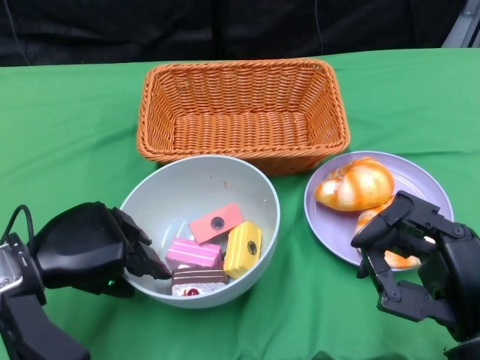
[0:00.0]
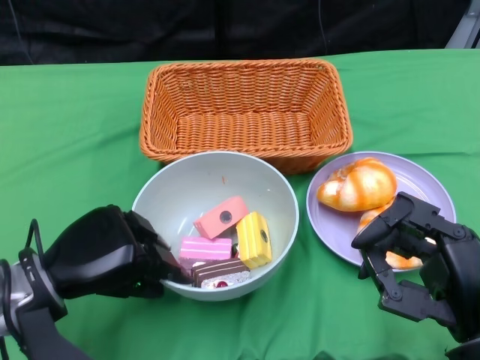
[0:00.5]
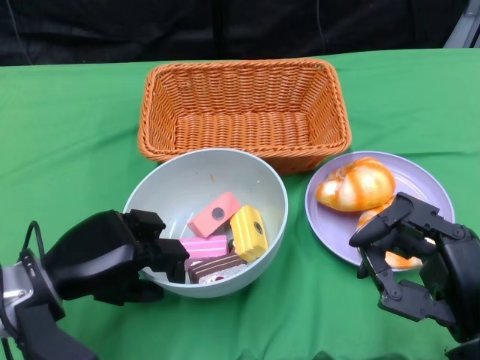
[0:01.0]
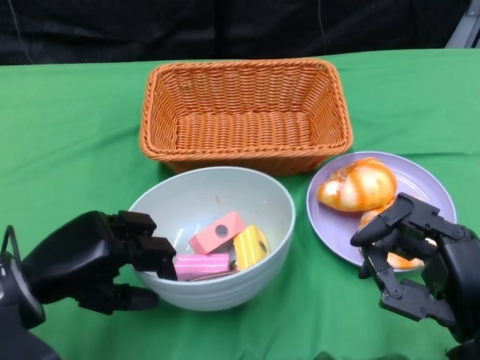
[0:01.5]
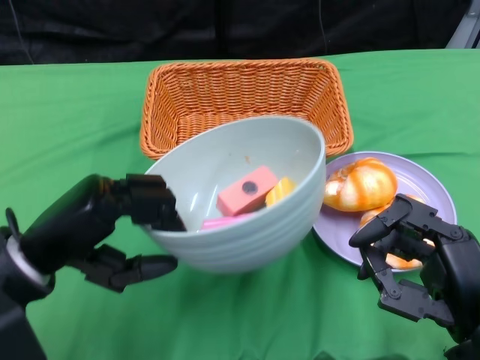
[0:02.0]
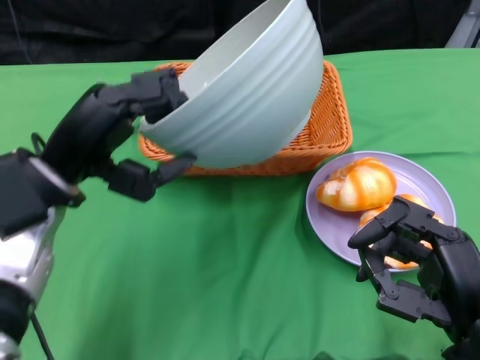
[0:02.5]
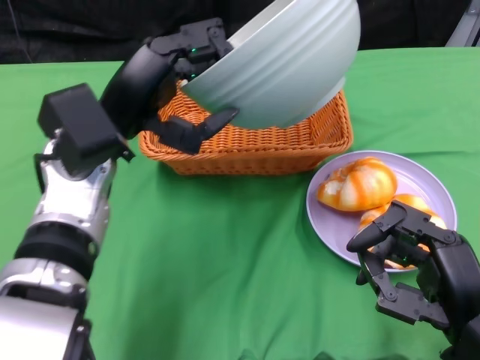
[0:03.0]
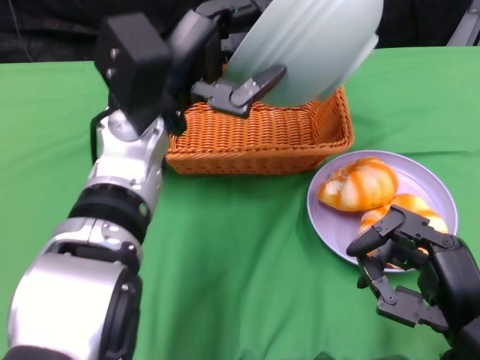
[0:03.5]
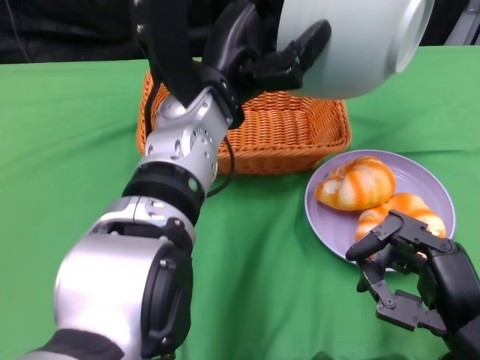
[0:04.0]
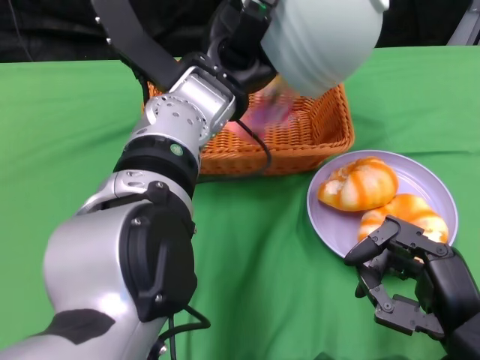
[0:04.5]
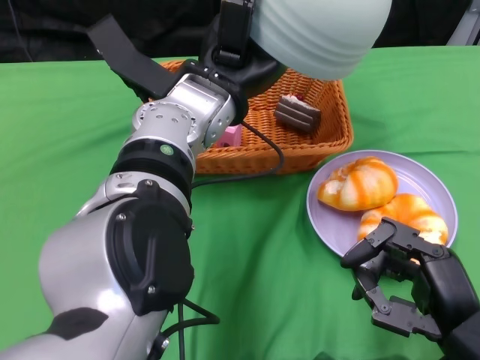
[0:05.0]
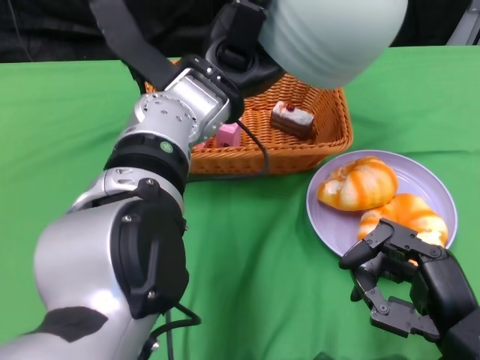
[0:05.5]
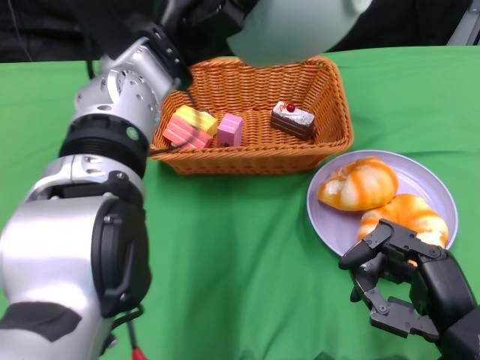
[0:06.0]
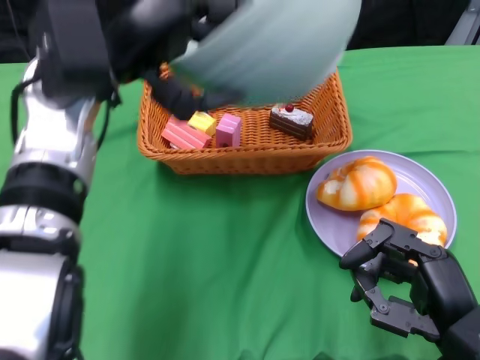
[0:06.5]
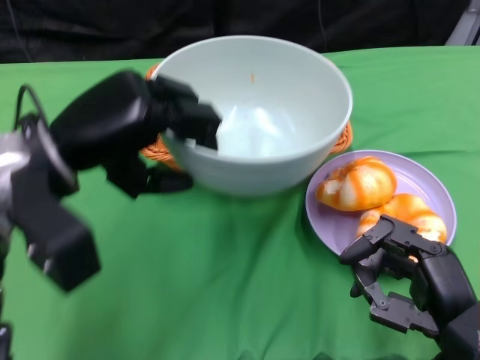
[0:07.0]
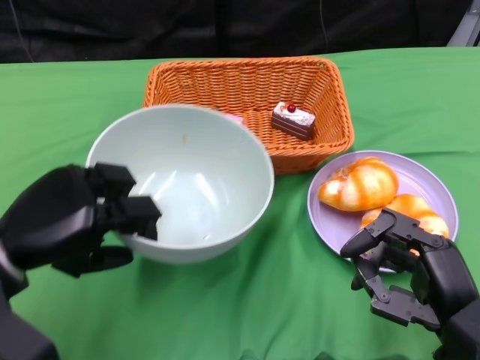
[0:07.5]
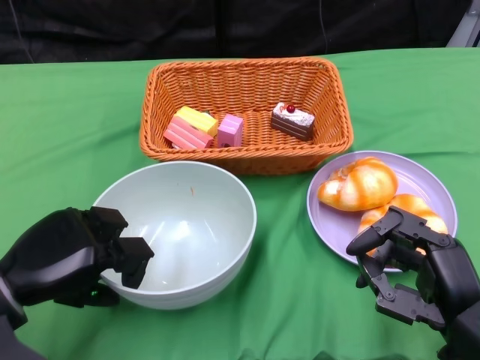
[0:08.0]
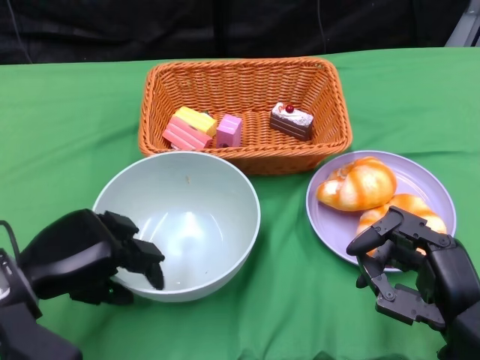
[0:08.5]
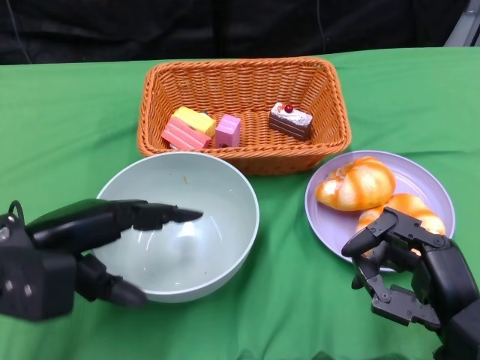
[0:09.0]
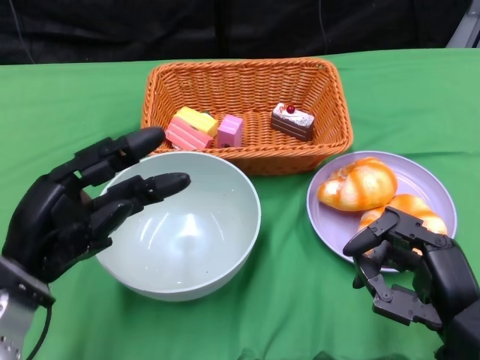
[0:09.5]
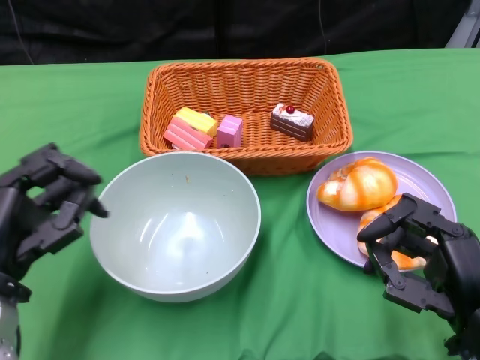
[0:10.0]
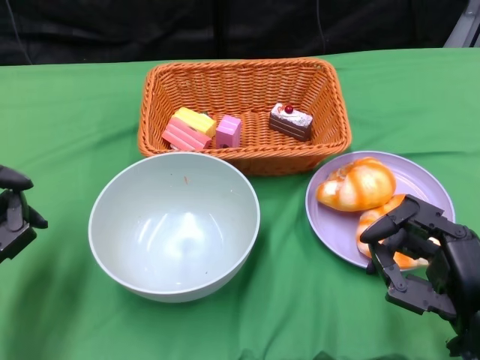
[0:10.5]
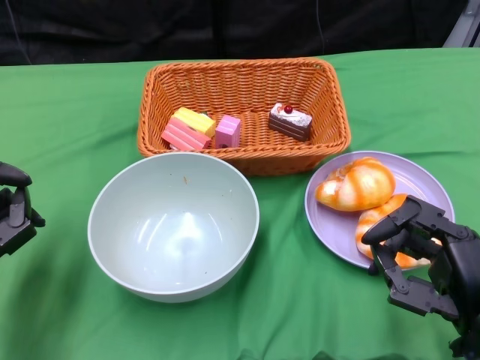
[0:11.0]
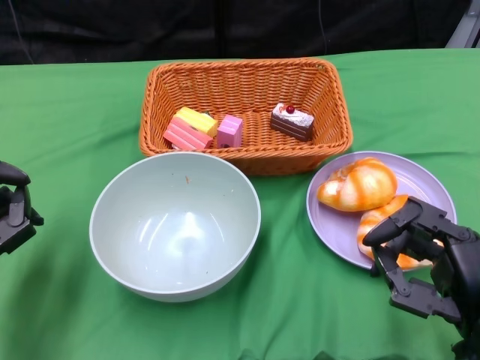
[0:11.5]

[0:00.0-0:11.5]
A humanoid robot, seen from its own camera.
Step, 0:01.5 to 0:06.0: Pour the cake into the basket with the left gripper.
Step, 0:06.5 to 0:09.0: Place the bowl on the table with the left gripper.
0:02.0 to 0:04.0: The left hand shifts about 20 cm to the right, forward and upward.
0:04.0 to 0:06.0: The left hand shifts by about 5 cm.
0:06.0 to 0:07.5: The left hand moves to the left, downward and backward, some 20 cm.
0:09.5 to 0:11.5: The left hand shifts by approximately 5 cm.

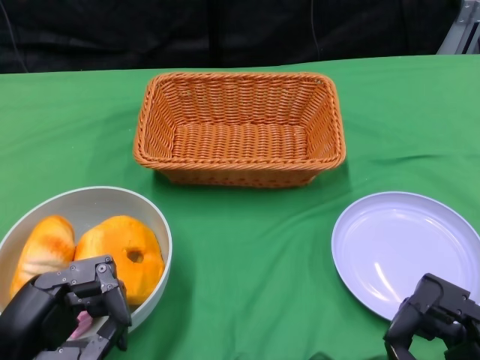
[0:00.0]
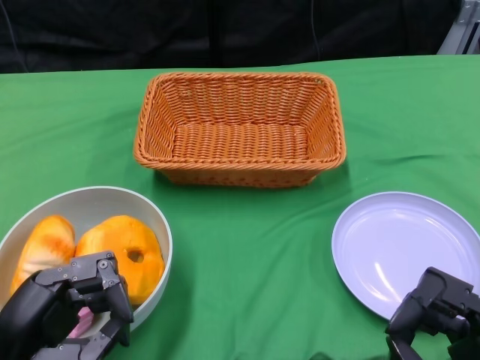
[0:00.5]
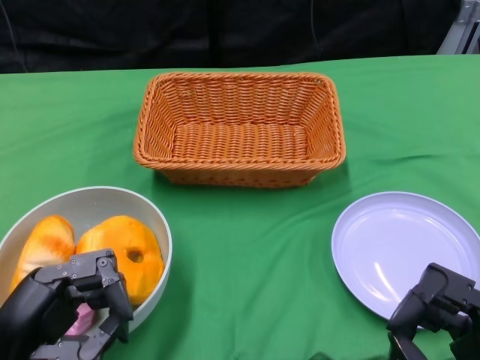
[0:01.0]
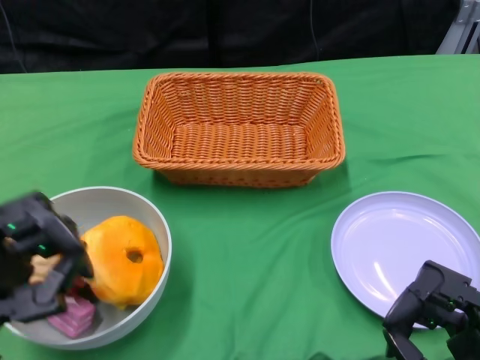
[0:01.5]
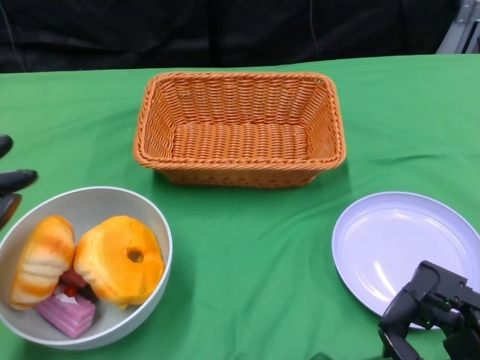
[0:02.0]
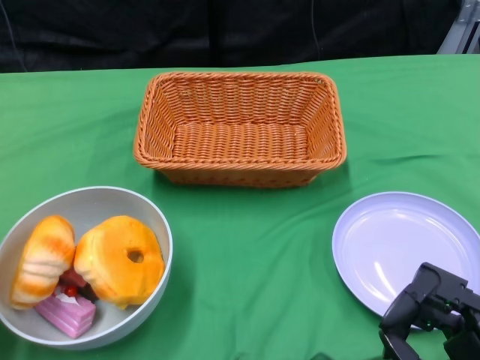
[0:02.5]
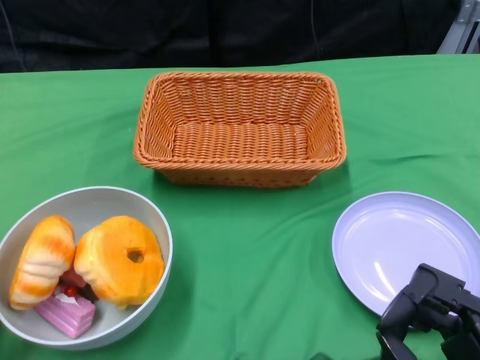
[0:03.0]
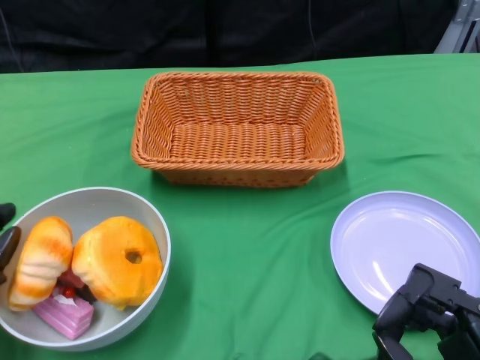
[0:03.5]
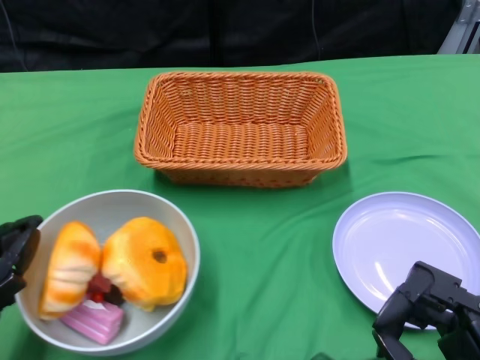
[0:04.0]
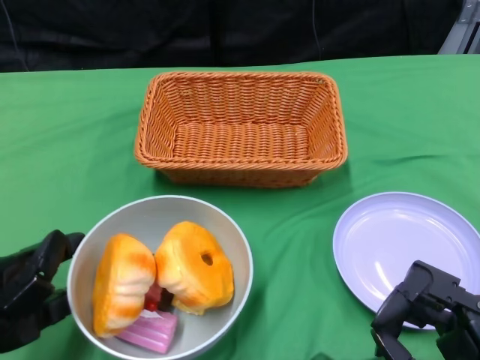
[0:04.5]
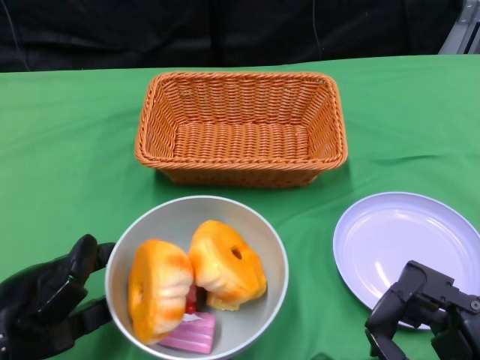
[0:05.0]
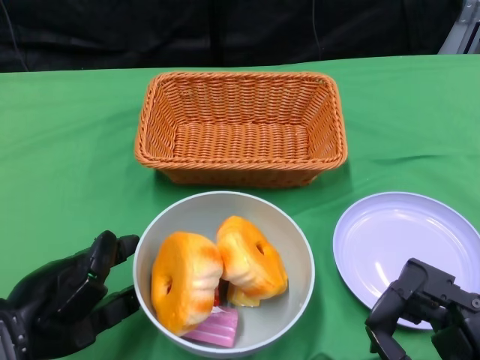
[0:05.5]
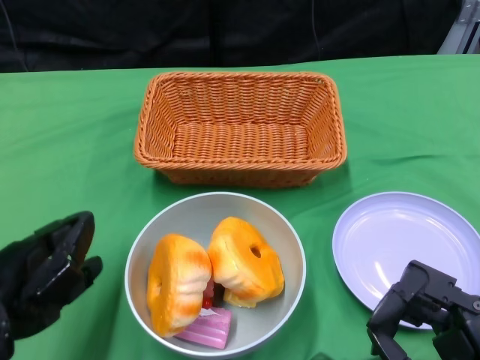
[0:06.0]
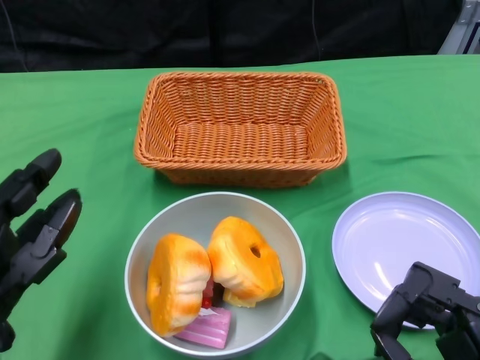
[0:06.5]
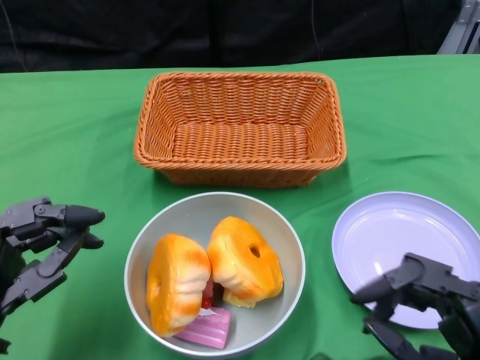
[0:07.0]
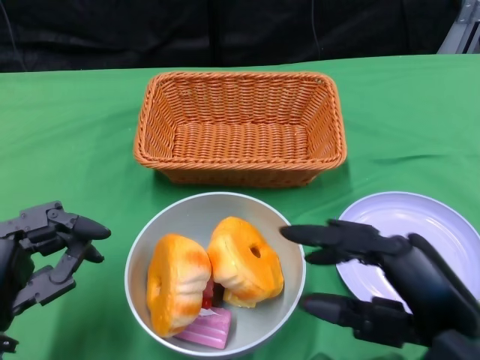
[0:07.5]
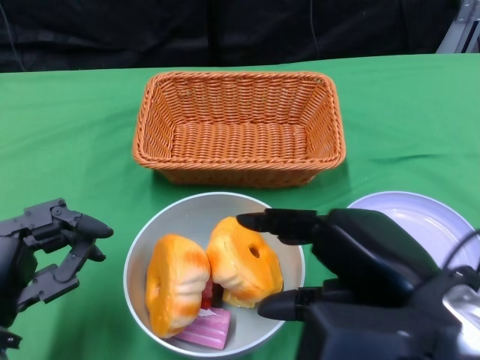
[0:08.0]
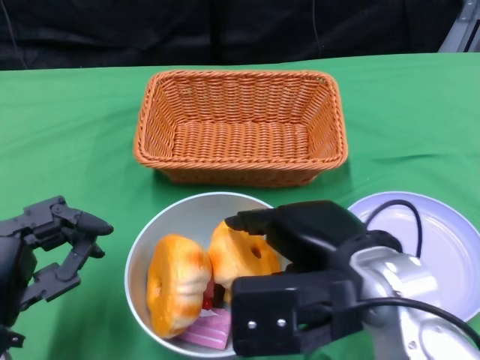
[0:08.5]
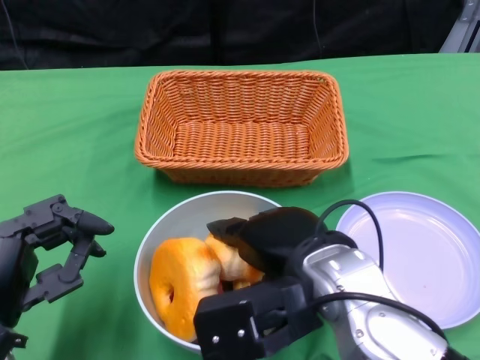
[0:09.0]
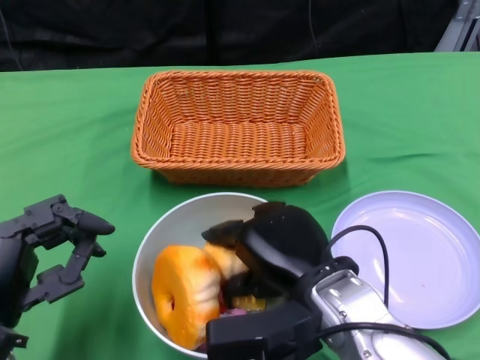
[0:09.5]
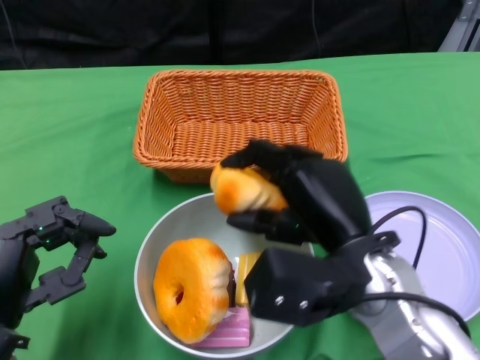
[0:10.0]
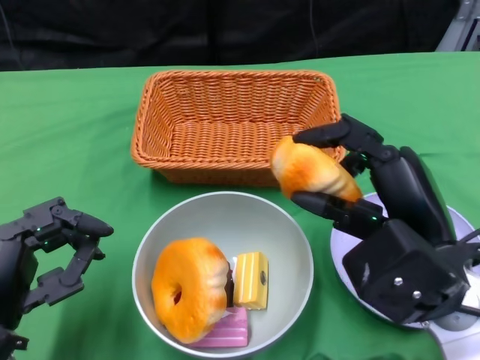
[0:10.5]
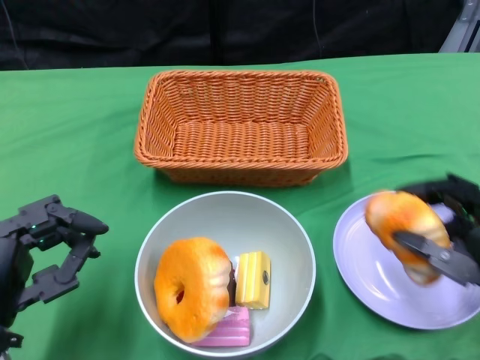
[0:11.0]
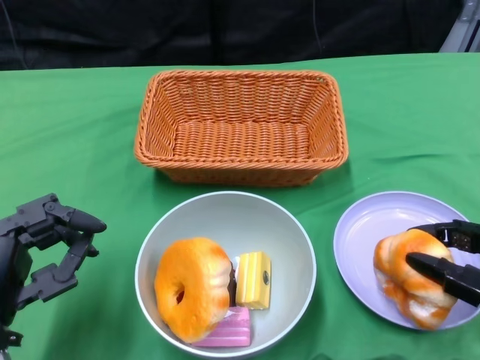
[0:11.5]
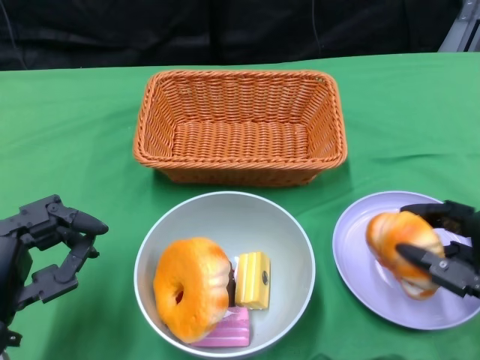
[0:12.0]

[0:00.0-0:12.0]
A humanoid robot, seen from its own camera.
Step, 0:00.0 to 0:05.5: Push the bowl to the center of the table using the left gripper.
0:04.0 to 0:06.0: The left hand moves to the right, about 5 cm.
0:06.0 to 0:08.0: The right hand is displaced upward, to the left and forward by approximately 15 cm; the left hand moves downward, roughly 5 cm.
0:08.0 to 0:10.0: The right hand moves forward and downward, some 10 cm.
0:10.0 to 0:12.0: The right hand heads to the right, covering about 15 cm.

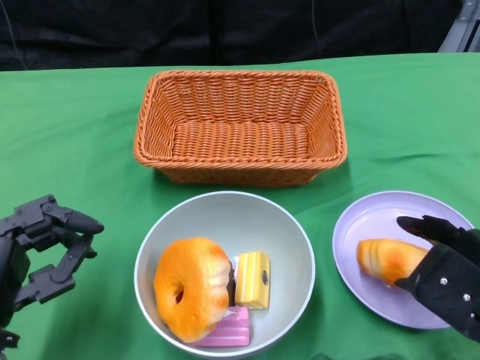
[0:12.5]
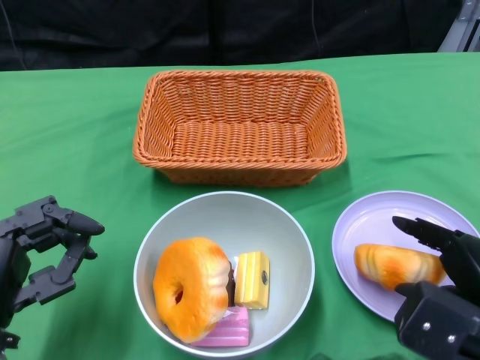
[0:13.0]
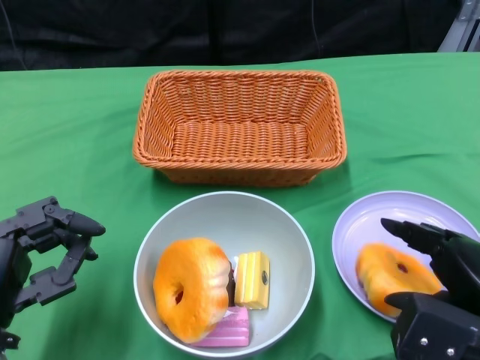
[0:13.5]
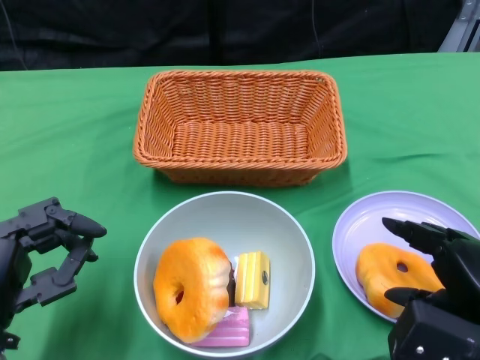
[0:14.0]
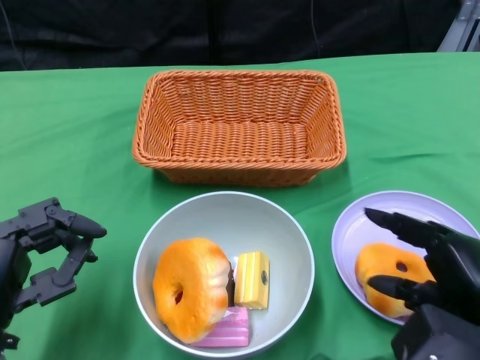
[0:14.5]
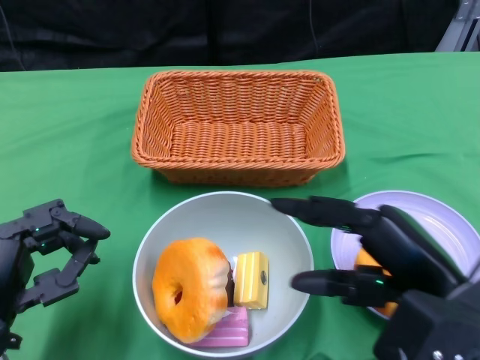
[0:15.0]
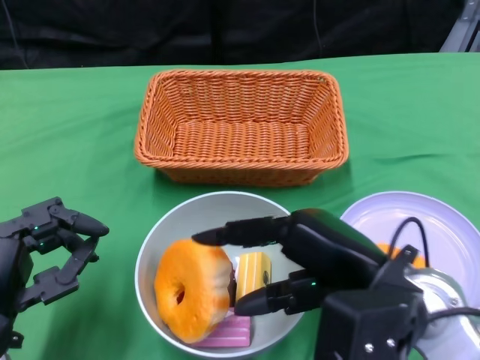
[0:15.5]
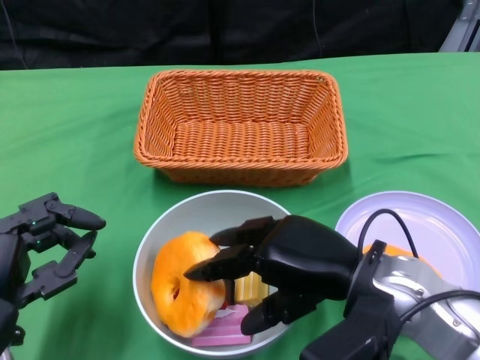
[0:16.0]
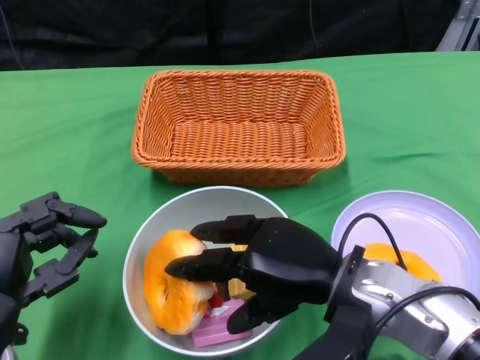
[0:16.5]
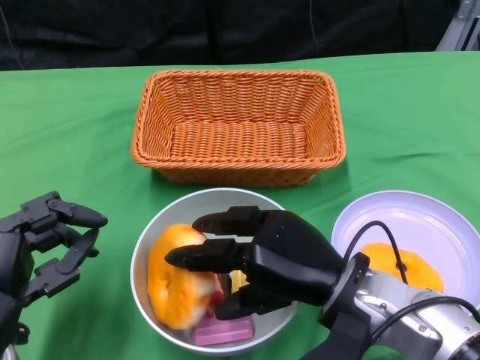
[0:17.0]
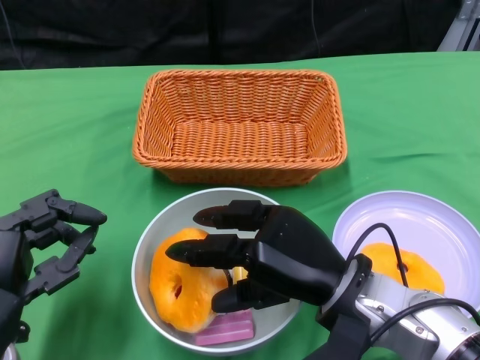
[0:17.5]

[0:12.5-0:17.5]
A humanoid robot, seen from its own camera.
0:12.5 to 0:15.0: The right hand heads to the left, covering roughly 5 cm.
0:15.0 to 0:17.5: The right hand is displaced to the left and downward by some 10 cm.
